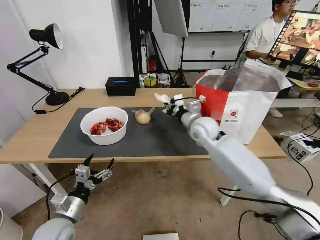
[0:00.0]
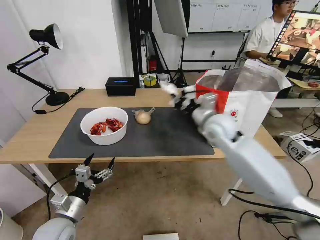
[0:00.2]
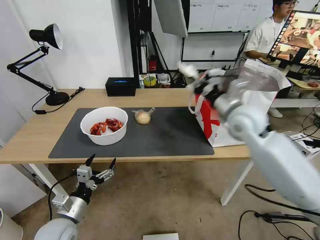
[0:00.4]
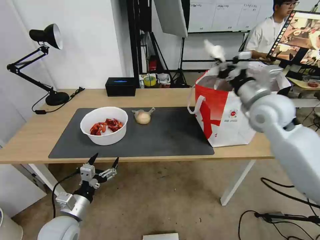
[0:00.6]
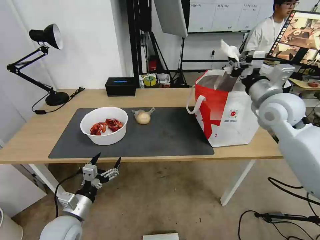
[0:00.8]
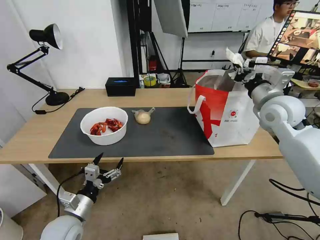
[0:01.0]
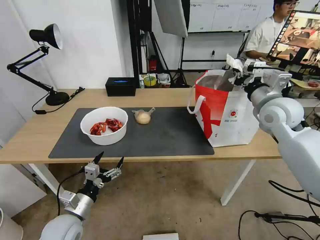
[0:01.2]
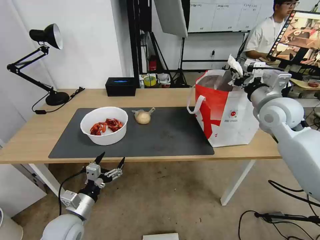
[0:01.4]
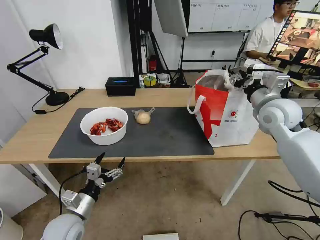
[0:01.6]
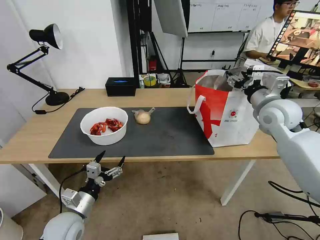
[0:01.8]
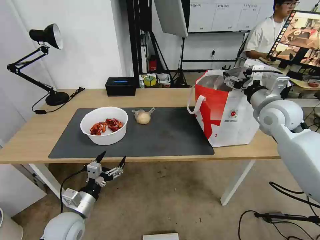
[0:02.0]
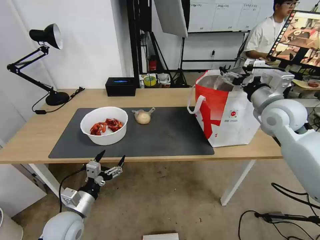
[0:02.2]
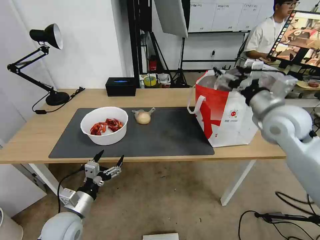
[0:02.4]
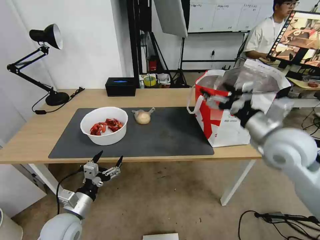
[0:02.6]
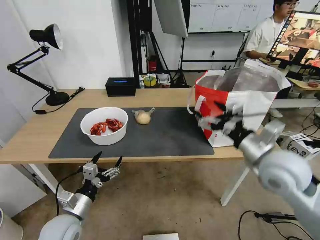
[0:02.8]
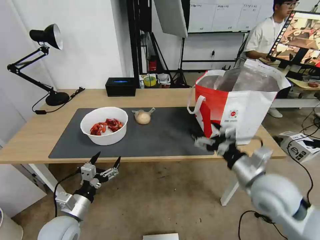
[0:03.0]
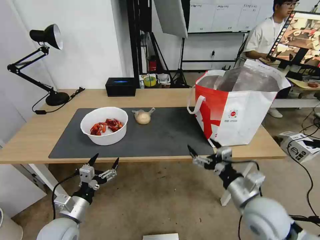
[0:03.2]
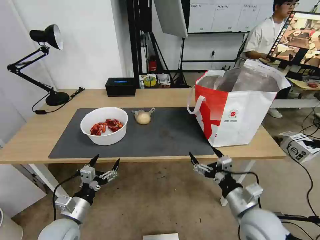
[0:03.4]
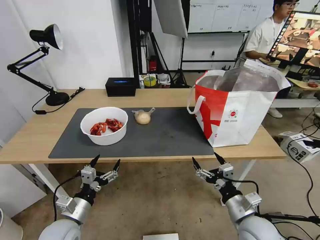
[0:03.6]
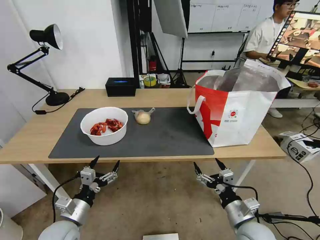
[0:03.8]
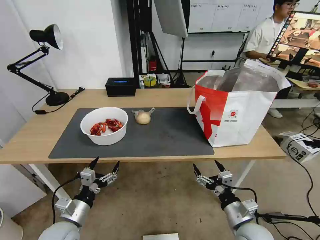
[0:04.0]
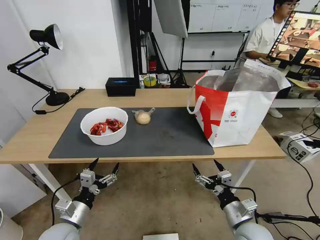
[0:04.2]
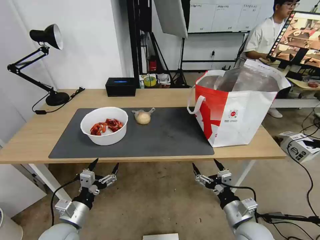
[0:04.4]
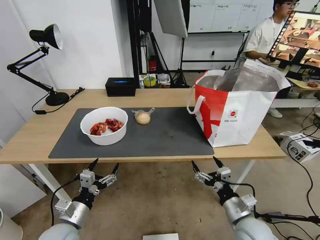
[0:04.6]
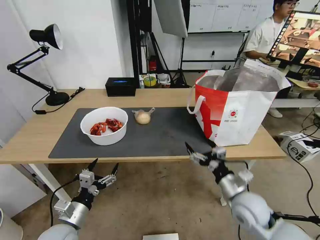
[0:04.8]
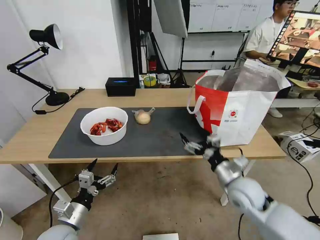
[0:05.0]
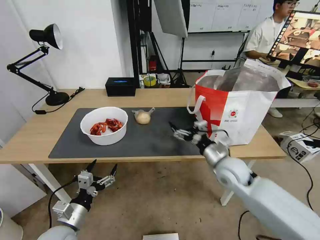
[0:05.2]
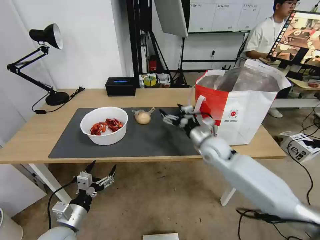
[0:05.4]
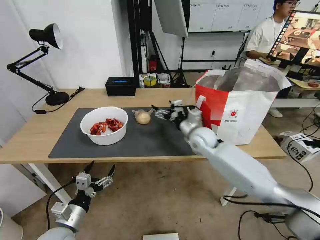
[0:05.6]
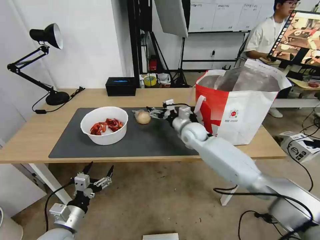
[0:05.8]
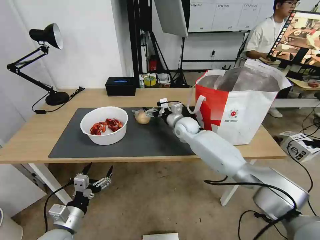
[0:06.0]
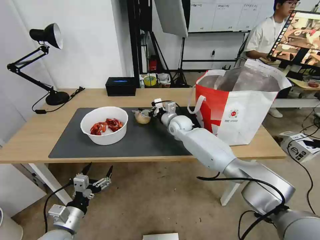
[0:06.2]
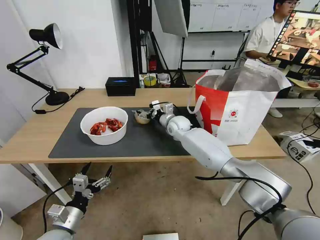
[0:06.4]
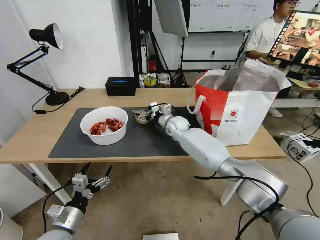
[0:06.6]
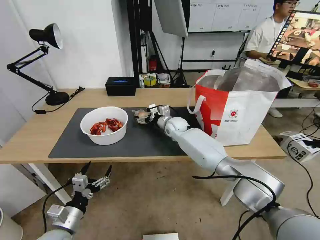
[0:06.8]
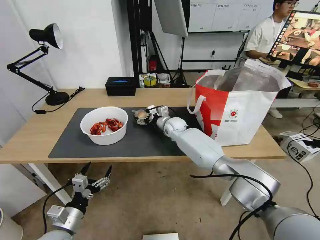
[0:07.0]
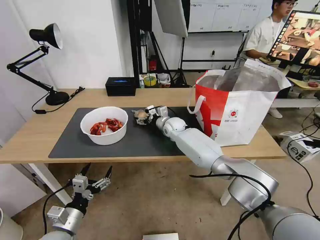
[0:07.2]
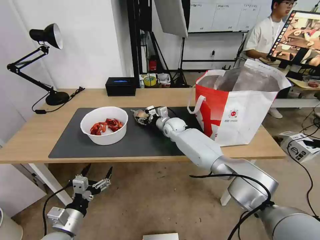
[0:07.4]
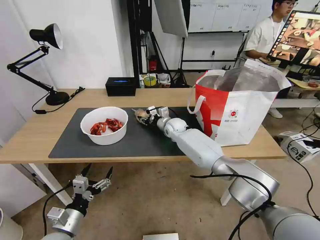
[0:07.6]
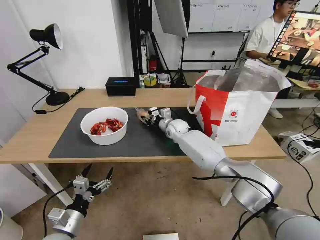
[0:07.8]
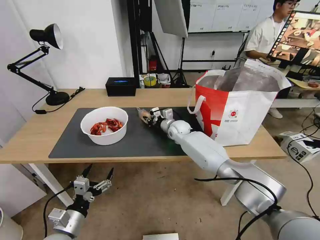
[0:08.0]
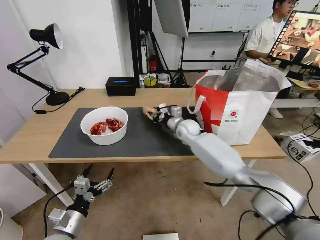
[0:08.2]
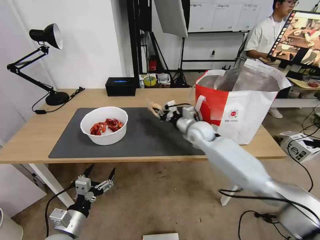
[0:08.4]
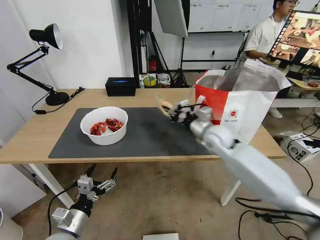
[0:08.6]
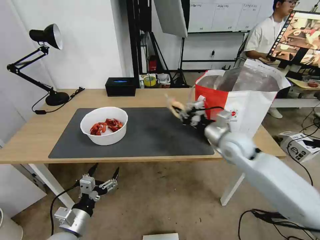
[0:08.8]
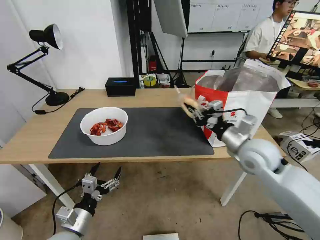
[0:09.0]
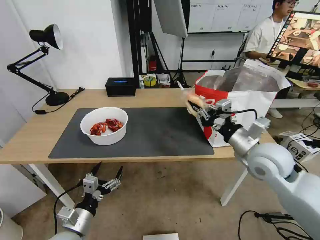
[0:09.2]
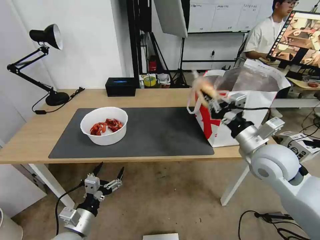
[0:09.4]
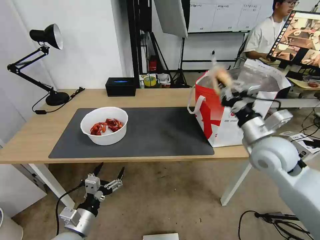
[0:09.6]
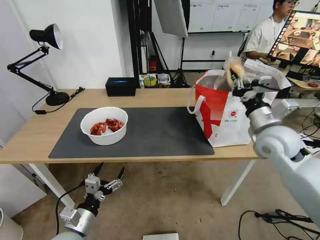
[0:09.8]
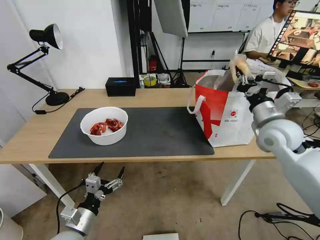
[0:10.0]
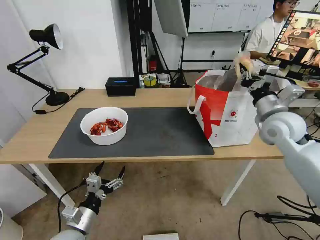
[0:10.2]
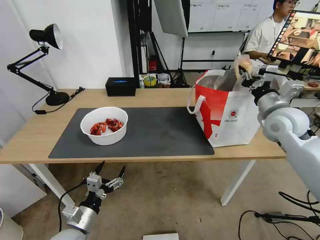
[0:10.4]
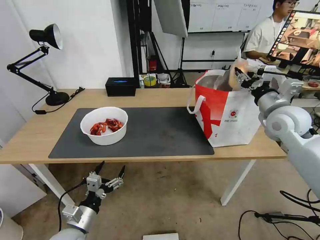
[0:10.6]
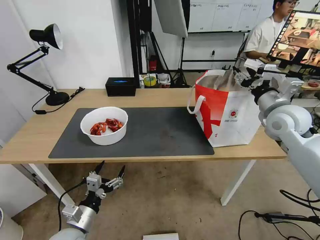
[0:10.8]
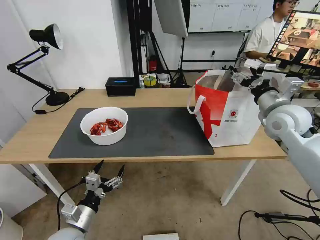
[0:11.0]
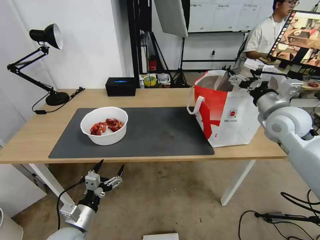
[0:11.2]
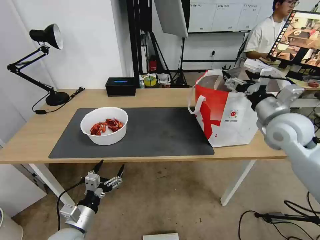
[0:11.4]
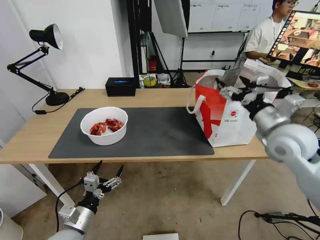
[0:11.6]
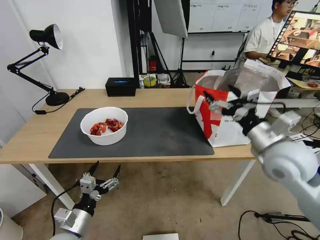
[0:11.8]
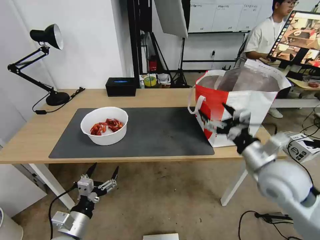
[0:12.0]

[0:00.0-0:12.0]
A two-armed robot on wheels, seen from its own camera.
Task of the whole recording: Pick up the trash from the table and place it into the takeout bag.
0:00.0 to 0:01.6: The right gripper goes about 20 cm to the right and upward, and opens up.
0:01.6 to 0:03.0: The right gripper moves backward and downward, approximately 20 cm, and opens its fingers.
0:03.0 to 0:04.4: The right gripper shifts about 15 cm downward and backward.
0:04.4 to 0:06.0: The right gripper travels forward and to the left by some 40 cm.
0:06.0 to 0:07.6: The right gripper shifts by some 5 cm, and closes up.
0:07.6 to 0:09.0: The right gripper goes approximately 30 cm backward, to the right and upward, and closes its fingers.
0:09.0 to 0:10.4: The right gripper travels to the right, upward and forward by roughly 15 cm.
0:10.4 to 0:12.0: The right gripper is displaced backward, to the left and downward by some 20 cm, and opens up.

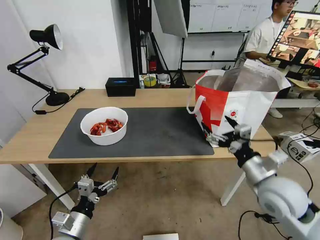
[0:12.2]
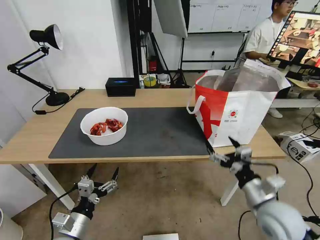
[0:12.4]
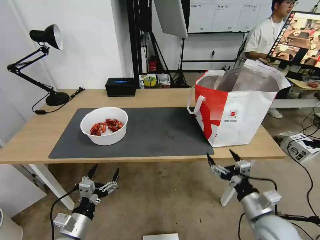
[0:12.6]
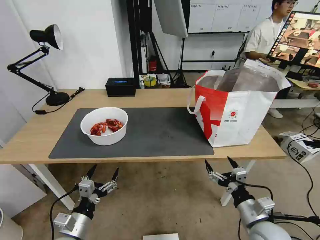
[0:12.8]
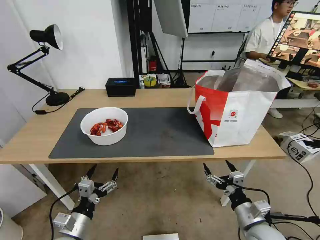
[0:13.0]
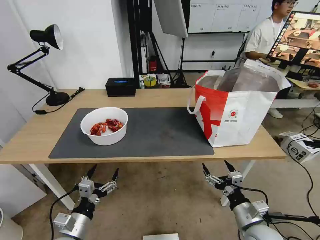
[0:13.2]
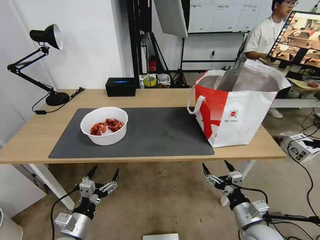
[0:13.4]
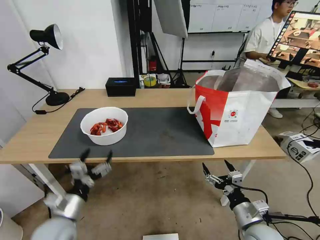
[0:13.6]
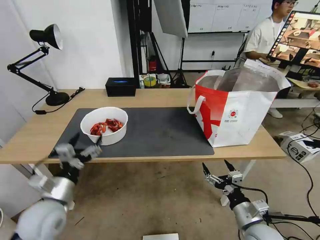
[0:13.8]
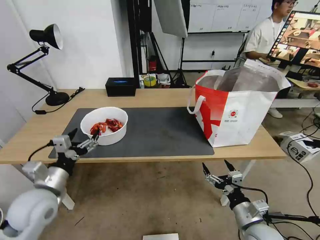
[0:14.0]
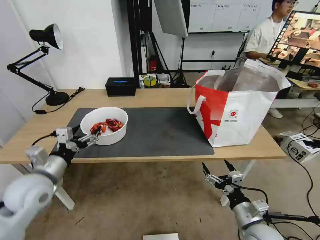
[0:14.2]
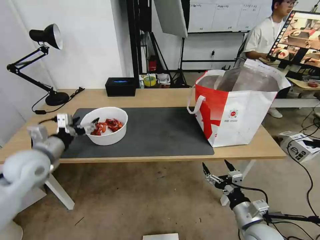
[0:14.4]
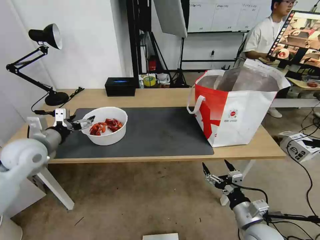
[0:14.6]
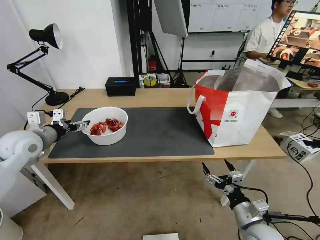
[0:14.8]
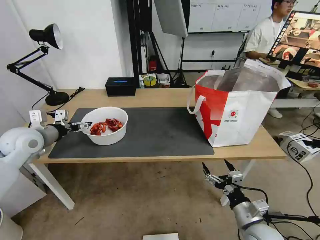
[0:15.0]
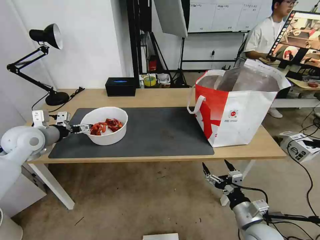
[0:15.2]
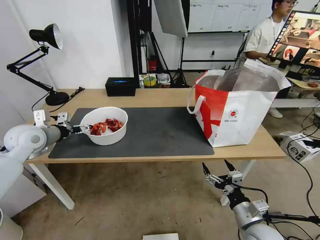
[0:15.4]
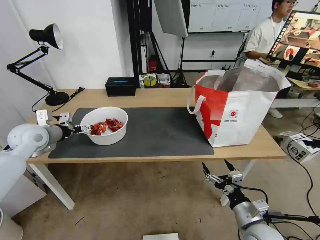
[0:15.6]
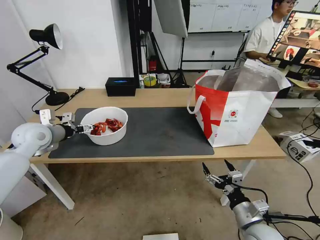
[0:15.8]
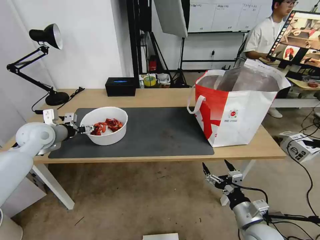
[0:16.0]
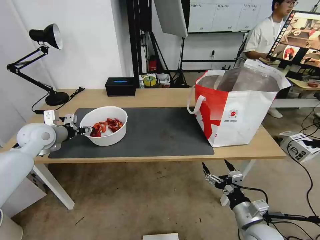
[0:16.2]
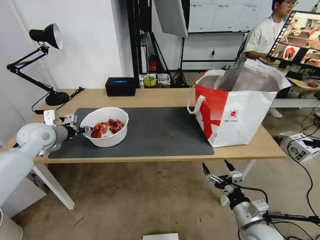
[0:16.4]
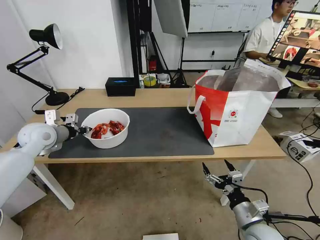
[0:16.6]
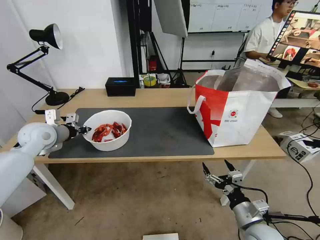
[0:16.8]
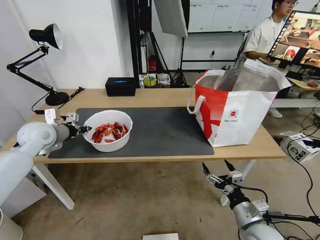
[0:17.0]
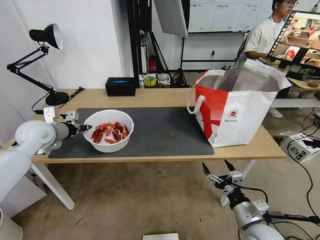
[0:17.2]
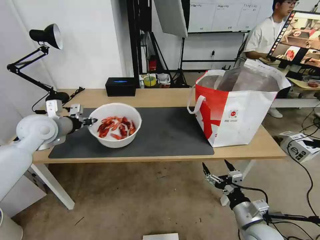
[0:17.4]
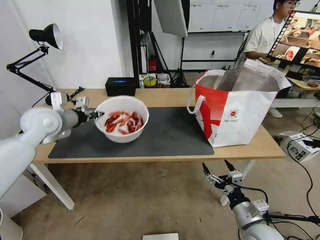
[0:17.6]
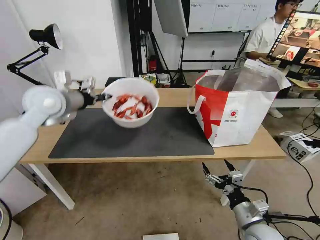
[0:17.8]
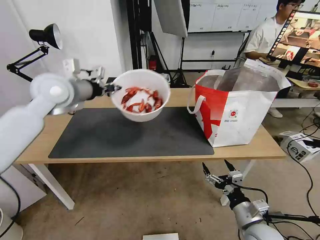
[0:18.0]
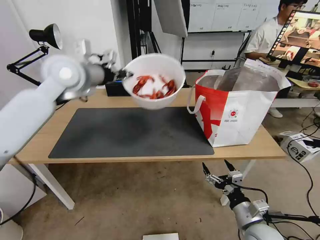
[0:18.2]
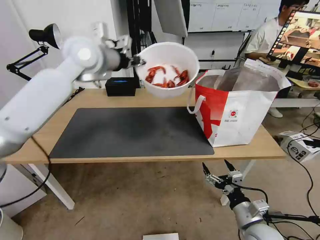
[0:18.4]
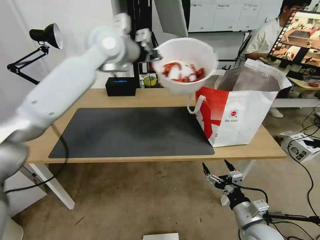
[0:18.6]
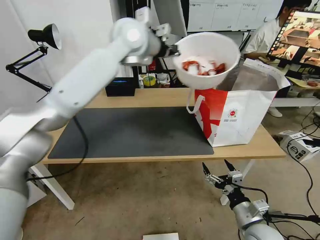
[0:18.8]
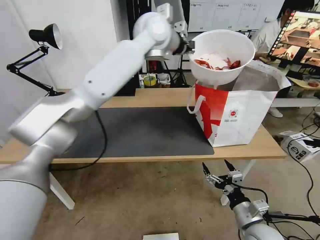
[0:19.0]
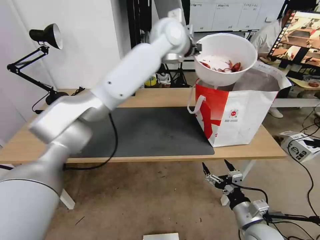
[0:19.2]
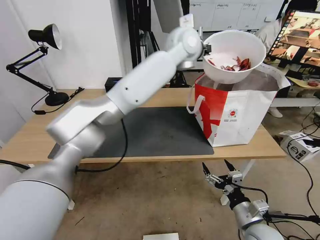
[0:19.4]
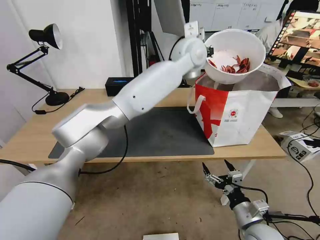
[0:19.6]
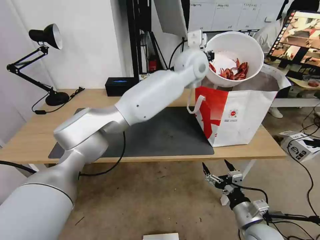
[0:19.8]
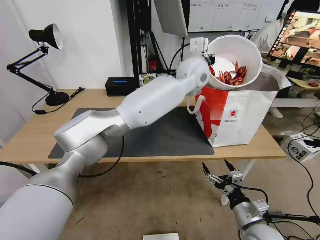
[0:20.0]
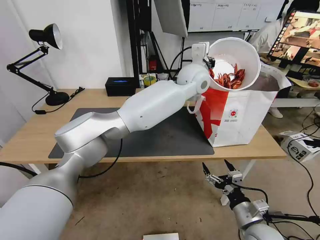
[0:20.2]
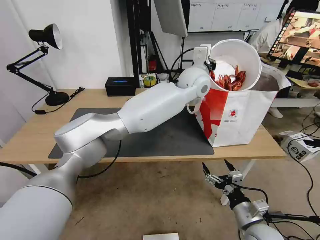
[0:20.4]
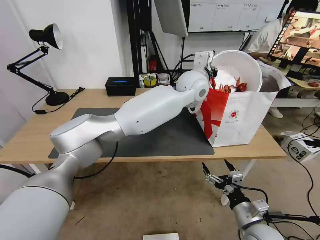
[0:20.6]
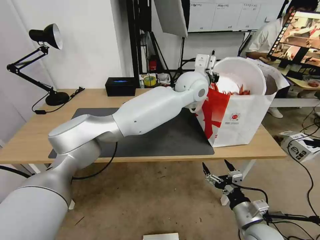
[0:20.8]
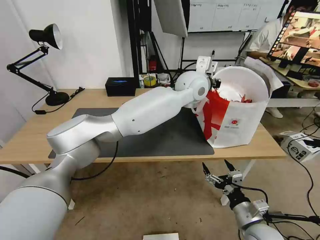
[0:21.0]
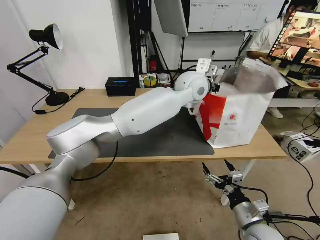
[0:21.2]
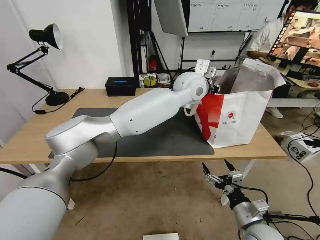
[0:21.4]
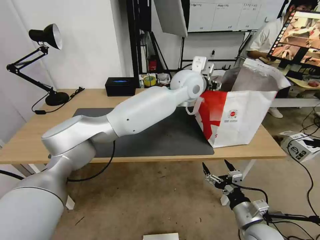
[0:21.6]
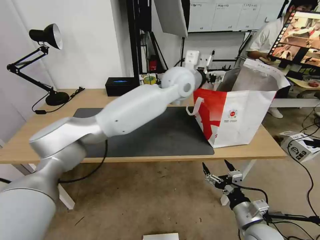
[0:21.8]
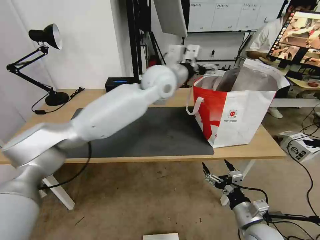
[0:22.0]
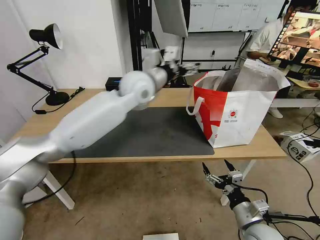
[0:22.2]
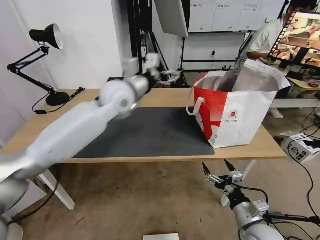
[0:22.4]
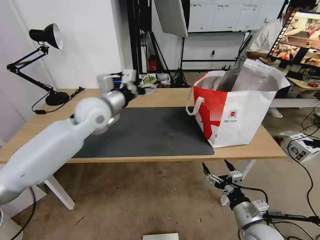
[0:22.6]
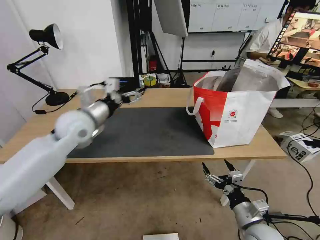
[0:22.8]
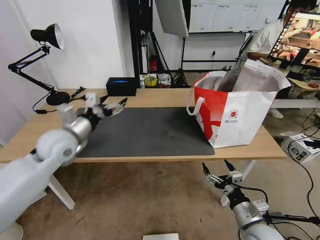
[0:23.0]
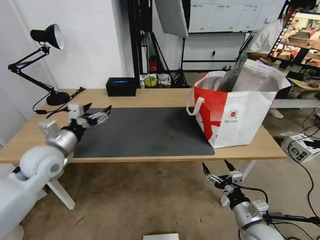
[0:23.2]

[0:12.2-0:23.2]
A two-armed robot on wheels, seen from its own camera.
Task of the whole recording: Pick up the trash from the table and place it into the takeout bag.
0:12.2 to 0:13.8: The right gripper is displaced downward and backward by approximately 15 cm. The left gripper heads upward and forward, covering roughly 10 cm.
0:13.8 to 0:15.4: The left gripper is displaced forward, to the left and upward by roughly 25 cm.
0:15.4 to 0:17.0: The left gripper closes its fingers.
0:17.0 to 0:18.4: The left gripper is displaced upward and to the right by roughly 30 cm.
0:18.4 to 0:20.0: The left gripper is displaced to the right by about 30 cm.
0:20.0 to 0:21.6: The left gripper opens.
0:21.6 to 0:23.2: The left gripper goes some 40 cm to the left and backward.
